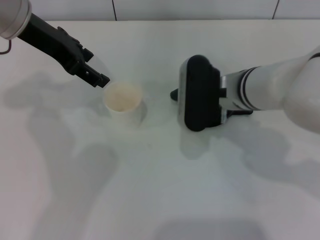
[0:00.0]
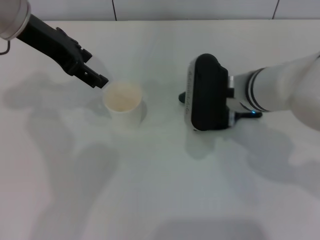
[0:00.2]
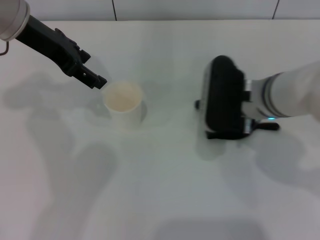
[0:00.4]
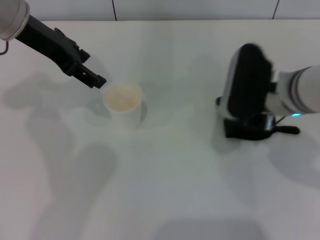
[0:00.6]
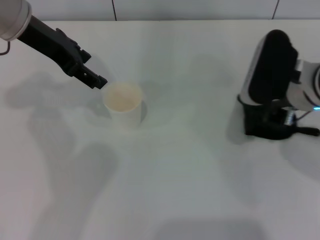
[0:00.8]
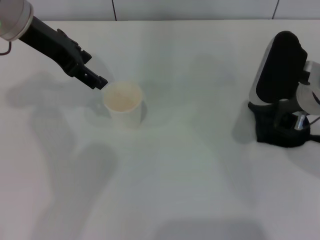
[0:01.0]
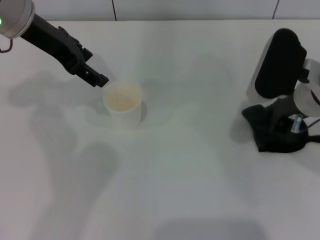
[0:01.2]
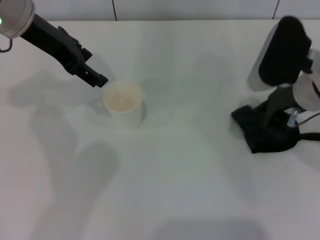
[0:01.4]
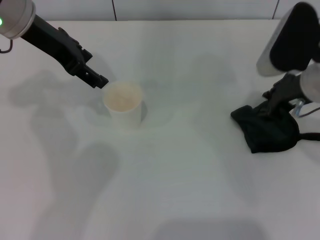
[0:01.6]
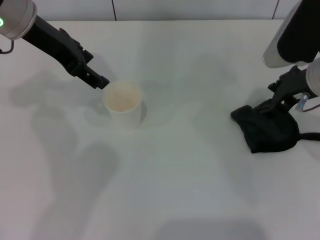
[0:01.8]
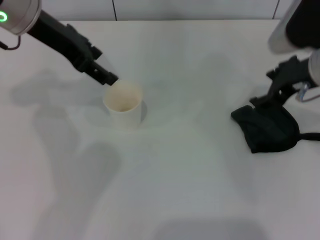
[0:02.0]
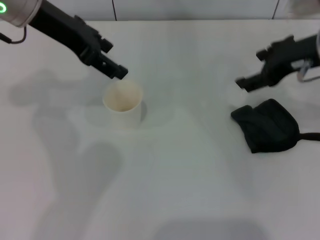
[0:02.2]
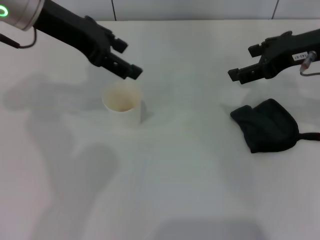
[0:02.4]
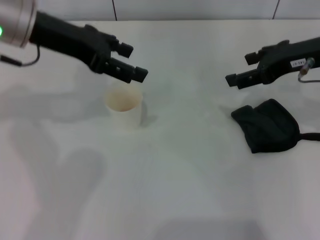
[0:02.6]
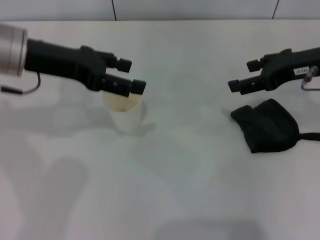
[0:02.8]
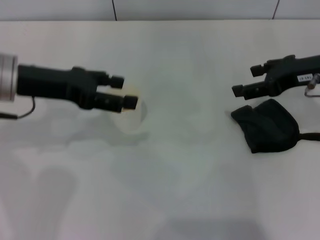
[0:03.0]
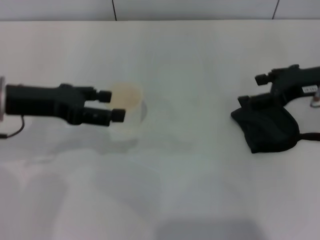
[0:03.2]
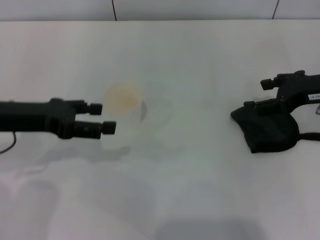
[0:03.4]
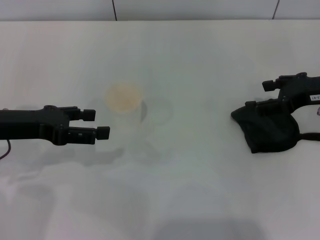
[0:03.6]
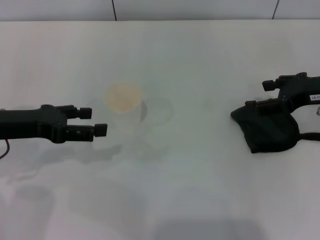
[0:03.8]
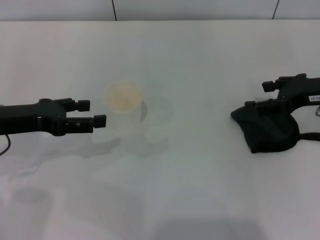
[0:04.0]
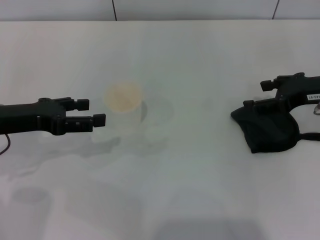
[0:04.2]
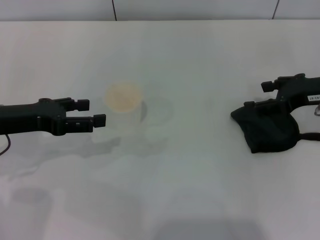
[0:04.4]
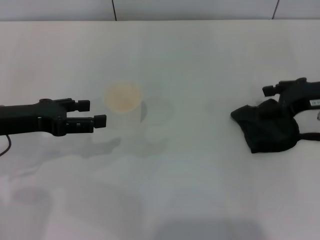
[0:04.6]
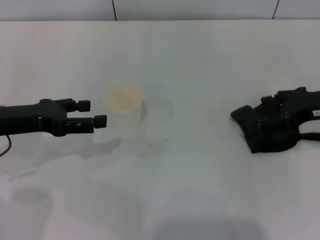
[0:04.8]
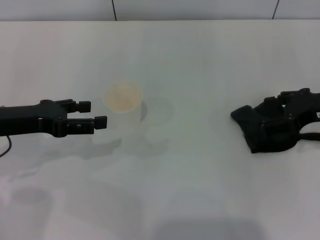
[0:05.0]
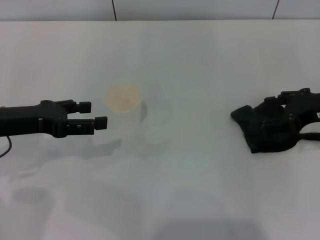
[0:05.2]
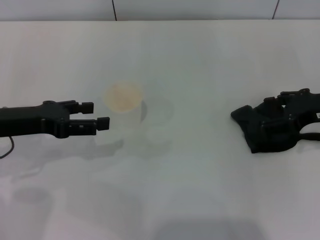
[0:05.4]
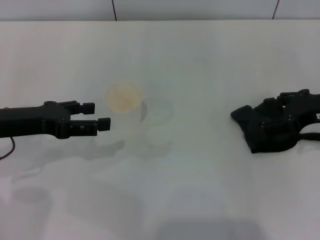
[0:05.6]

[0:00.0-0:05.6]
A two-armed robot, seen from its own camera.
Step, 0:01.2 to 0:02.2: Place the rag on the table with the right gripper.
0:00.0 to 0:01.4: The right gripper goes some 10 cm to the right.
0:01.4 to 0:02.8: The left gripper goes roughly 5 cm backward. The right gripper is displaced to the right by approximately 5 cm, and opens its fingers.
0:02.8 to 0:04.2: The right gripper ends up some 5 cm from where it was. The left gripper shifts roughly 10 cm downward, to the left and backward.
0:04.2 to 0:05.6: There are only small adjustments of the grippers.

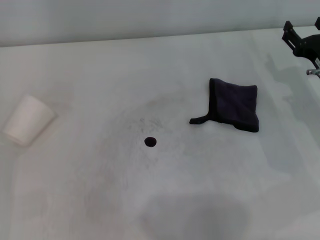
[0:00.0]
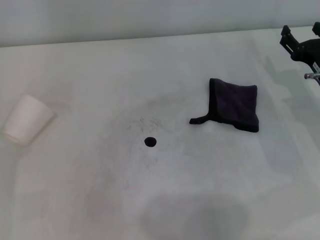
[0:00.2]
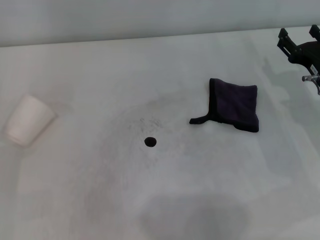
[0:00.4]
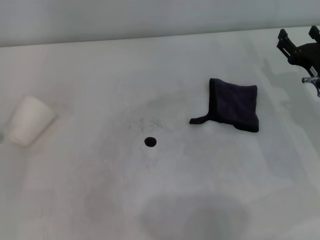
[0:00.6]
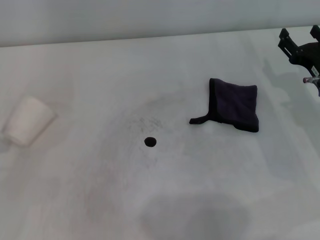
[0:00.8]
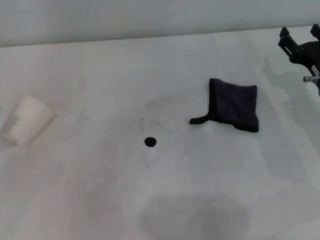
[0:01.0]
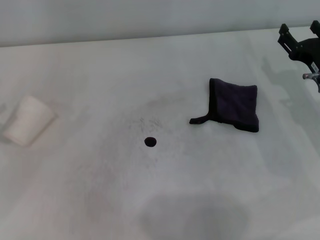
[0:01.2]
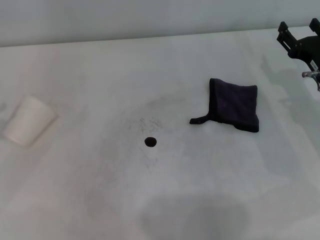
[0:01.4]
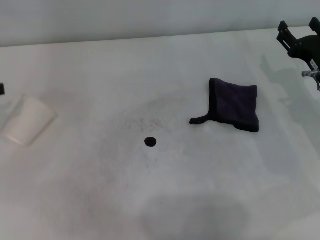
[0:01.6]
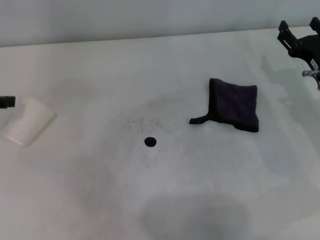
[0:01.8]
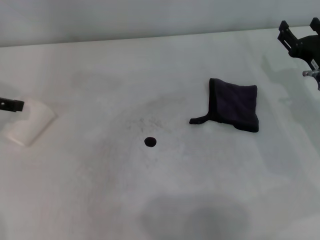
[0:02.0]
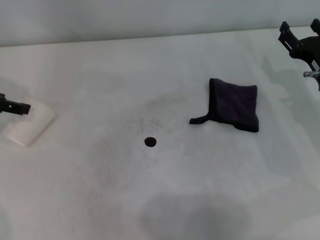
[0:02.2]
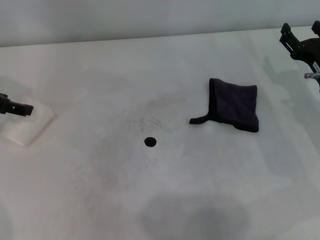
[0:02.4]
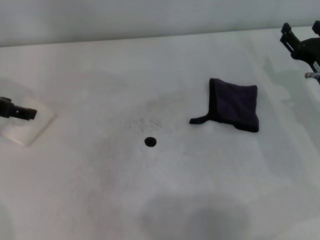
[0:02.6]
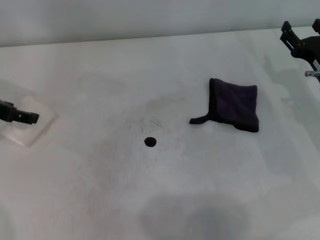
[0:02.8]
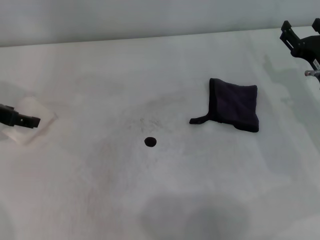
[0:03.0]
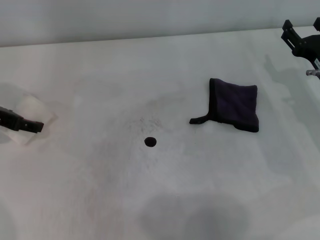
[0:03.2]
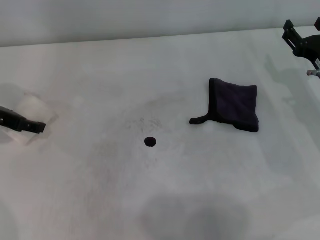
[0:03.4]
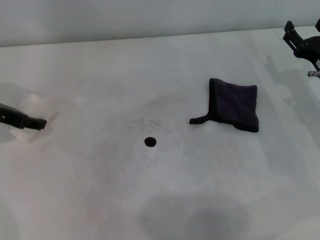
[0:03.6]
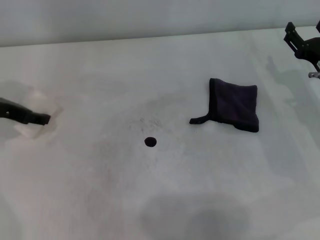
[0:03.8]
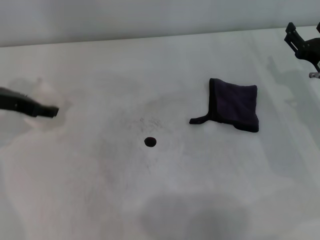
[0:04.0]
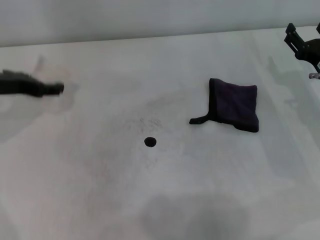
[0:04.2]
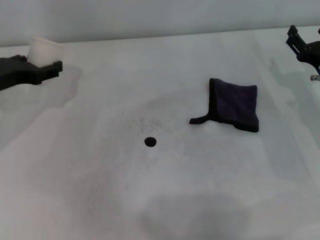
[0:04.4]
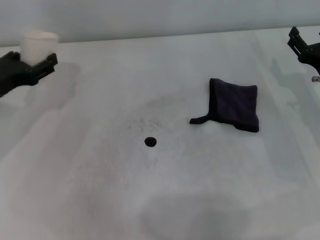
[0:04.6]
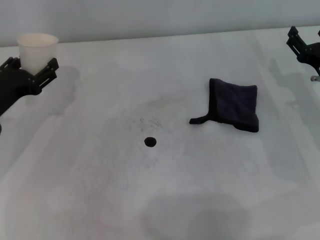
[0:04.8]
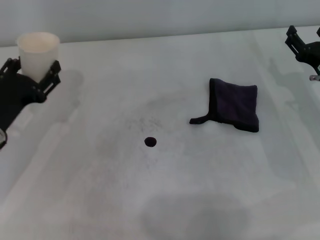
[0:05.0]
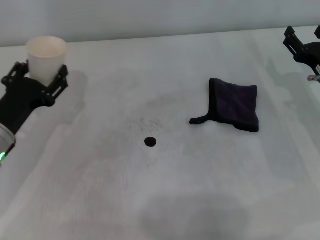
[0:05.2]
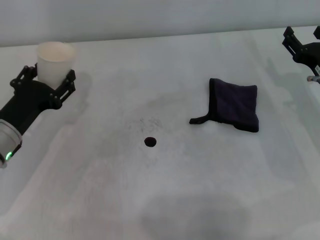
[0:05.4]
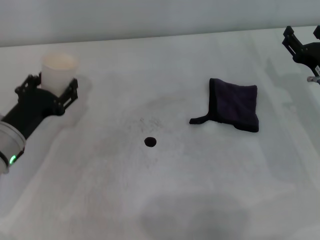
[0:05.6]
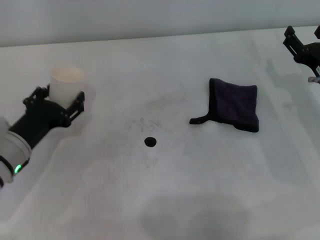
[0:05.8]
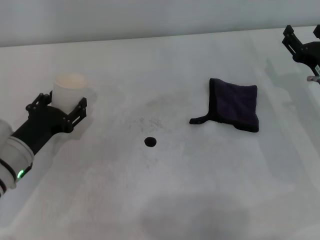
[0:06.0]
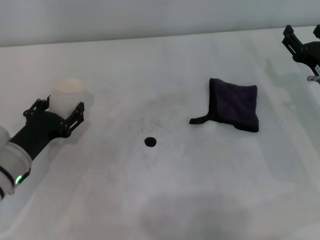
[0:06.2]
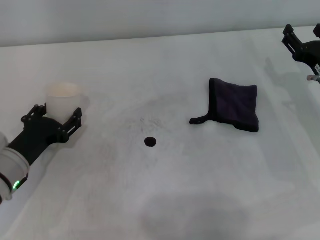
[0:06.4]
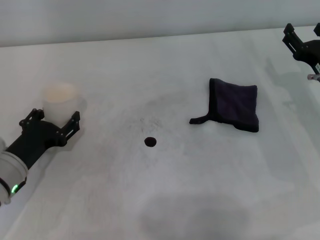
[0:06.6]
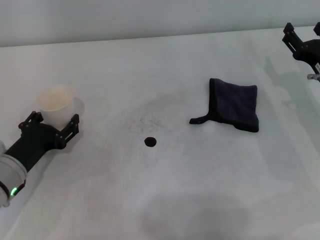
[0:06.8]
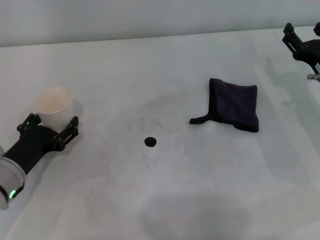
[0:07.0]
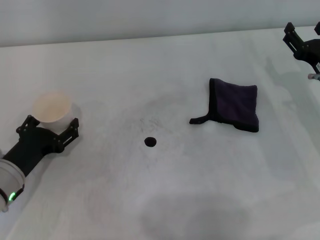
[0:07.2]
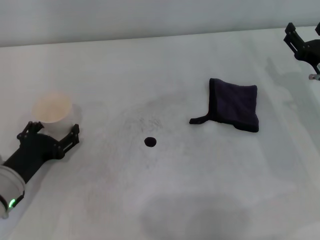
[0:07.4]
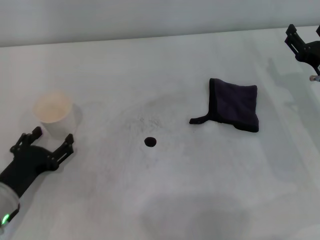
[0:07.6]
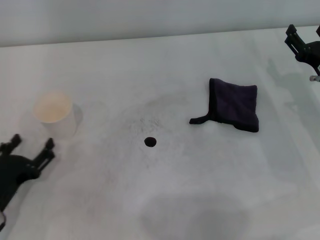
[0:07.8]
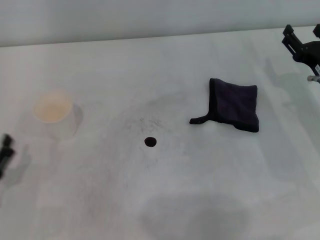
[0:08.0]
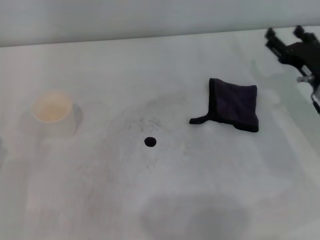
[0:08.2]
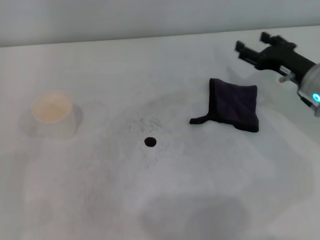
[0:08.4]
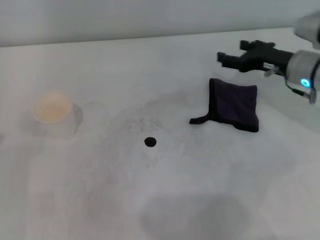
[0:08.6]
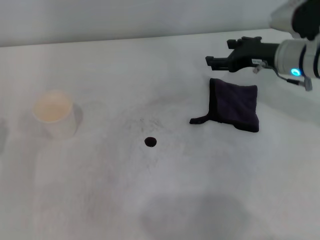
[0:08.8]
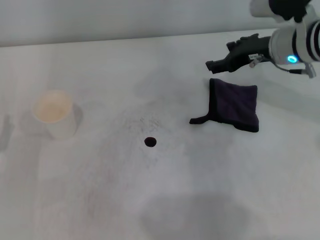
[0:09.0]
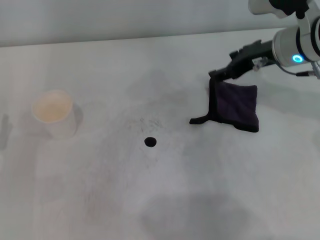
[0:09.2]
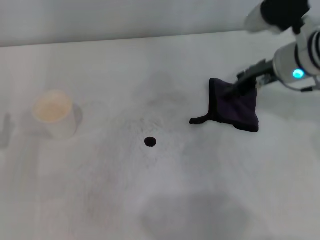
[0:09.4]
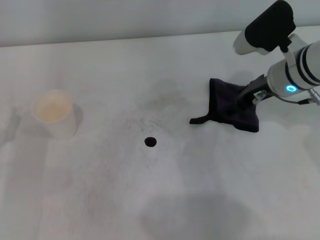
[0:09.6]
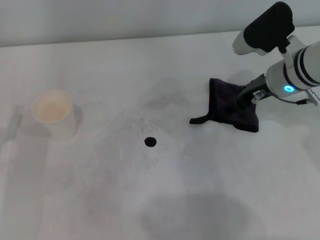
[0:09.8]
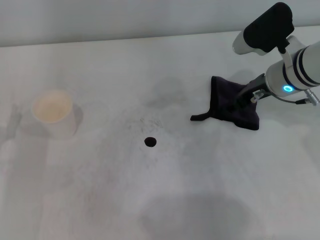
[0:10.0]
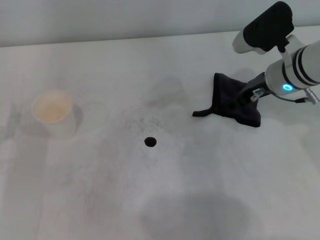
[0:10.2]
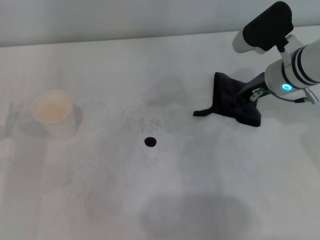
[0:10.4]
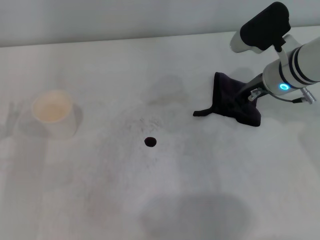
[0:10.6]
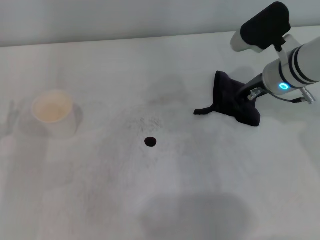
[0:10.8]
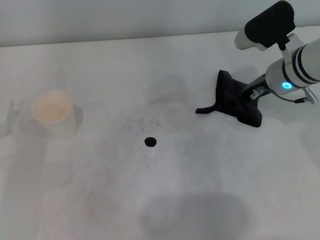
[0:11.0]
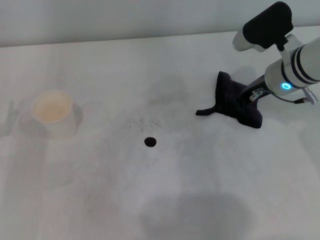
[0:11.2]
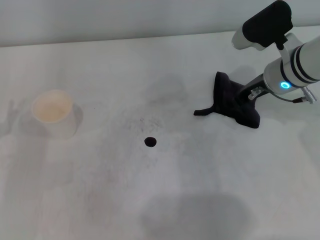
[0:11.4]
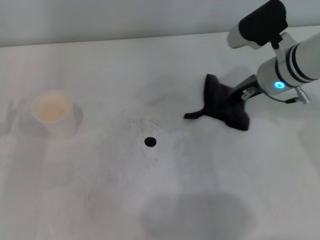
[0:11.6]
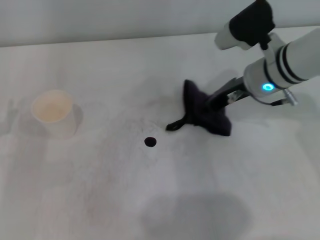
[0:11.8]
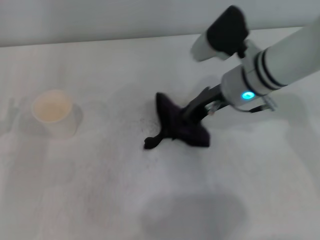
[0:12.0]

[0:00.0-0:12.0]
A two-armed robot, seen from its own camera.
Step, 0:00.0 to 0:03.4: Grasp the paper cup with the left gripper.
Step, 0:03.6 to 0:07.2: Stand the paper cup upright with the left gripper.
Step, 0:07.4 to 0:10.2: Grasp the rag with the right gripper.
0:01.6 to 0:03.0: The left gripper goes approximately 10 cm to the right.
0:03.0 to 0:04.4: The left gripper closes its fingers.
0:04.4 to 0:06.0: The left gripper moves downward and backward, approximately 15 cm.
0:06.0 to 0:07.6: The left gripper goes some 5 cm backward, and opens.
0:07.6 to 0:09.0: The right gripper moves upward, forward and to the left, some 15 cm. The left gripper moves to the left, about 5 cm.
0:09.0 to 0:10.4: The right gripper closes.
0:10.4 to 0:12.0: The right gripper travels to the left by roughly 5 cm, and closes up.

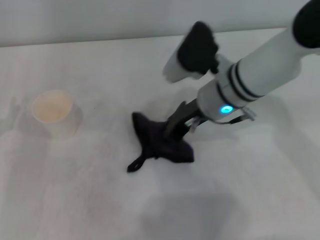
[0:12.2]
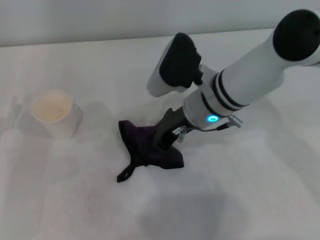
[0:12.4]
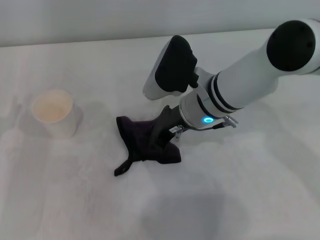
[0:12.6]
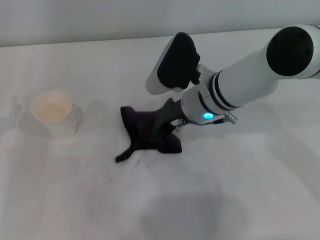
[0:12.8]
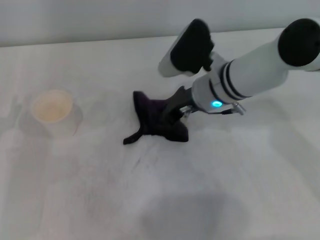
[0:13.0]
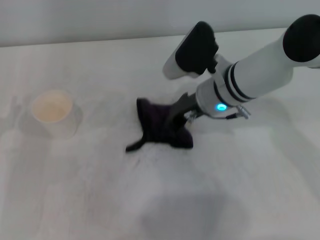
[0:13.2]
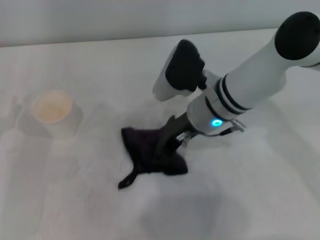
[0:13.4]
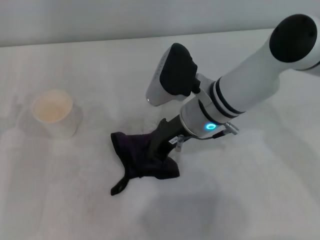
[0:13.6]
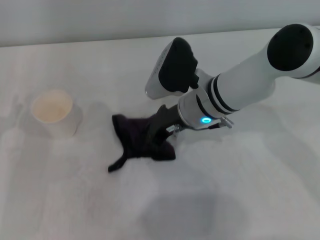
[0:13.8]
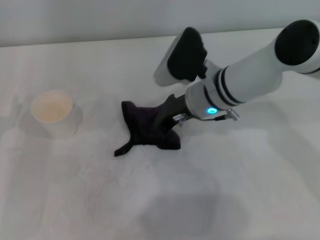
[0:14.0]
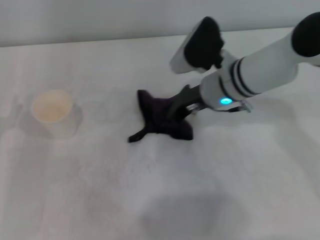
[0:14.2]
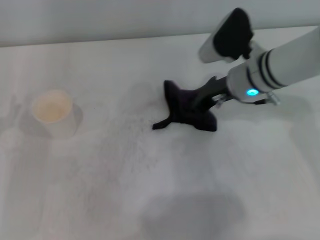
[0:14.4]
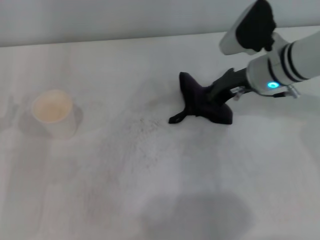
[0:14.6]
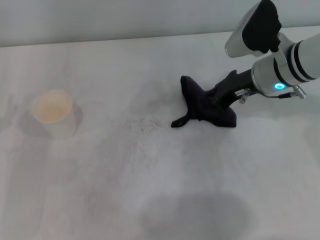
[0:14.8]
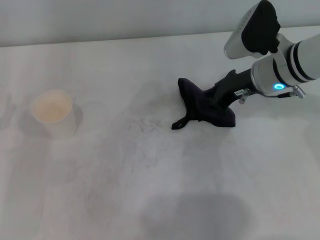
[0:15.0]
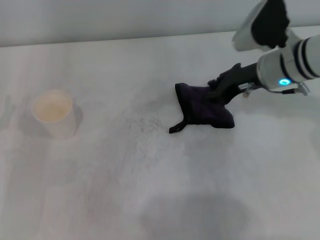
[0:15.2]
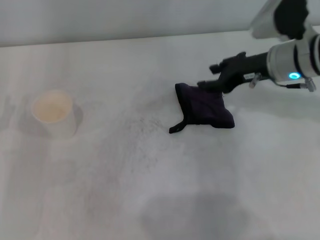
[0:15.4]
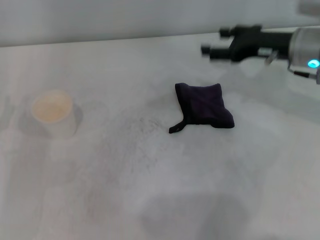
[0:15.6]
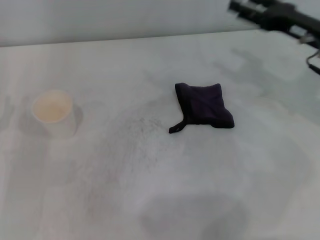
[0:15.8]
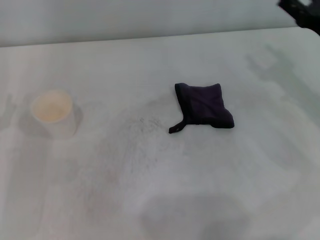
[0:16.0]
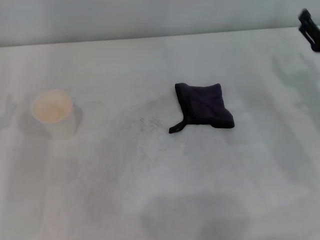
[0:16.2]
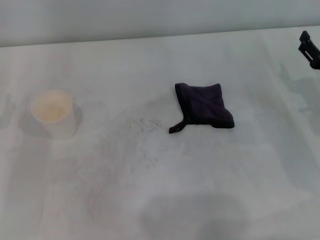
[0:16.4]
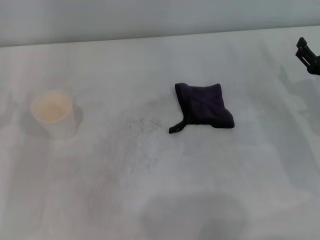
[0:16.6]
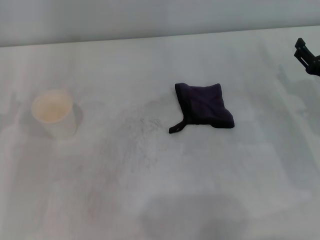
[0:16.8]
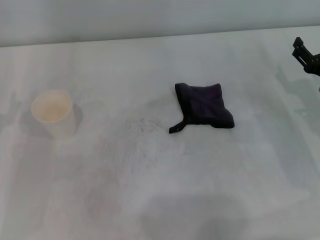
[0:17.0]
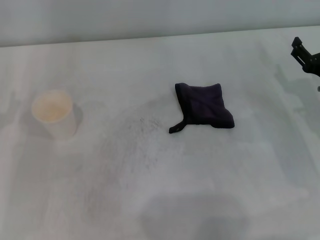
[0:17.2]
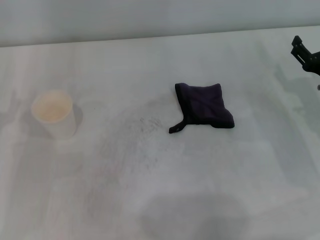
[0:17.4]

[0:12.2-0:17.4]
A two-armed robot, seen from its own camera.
Step, 0:12.2 to 0:14.4: Wipe the stains off the table with the right gripper.
Step, 0:14.6 to 0:15.0: Place the rag on the table with the right gripper.
0:12.2 to 0:14.0: The grippers make only small movements.
0:14.0 to 0:15.6: The right gripper is displaced to the right by roughly 15 cm, and opens its fingers.
0:15.6 to 0:17.4: The right gripper goes approximately 15 cm downward, backward and to the right.
